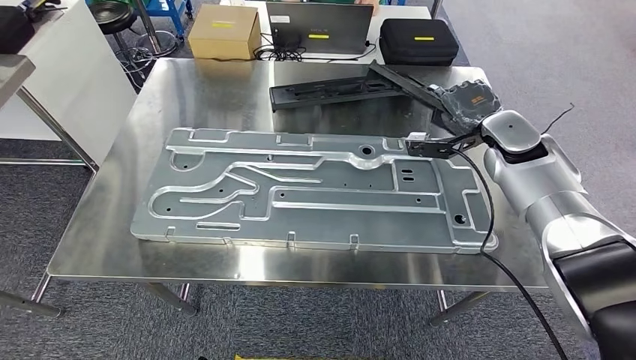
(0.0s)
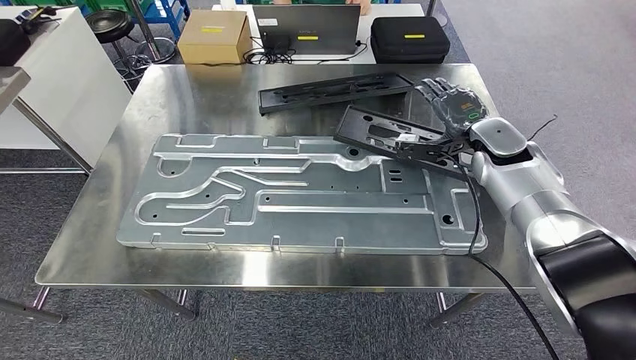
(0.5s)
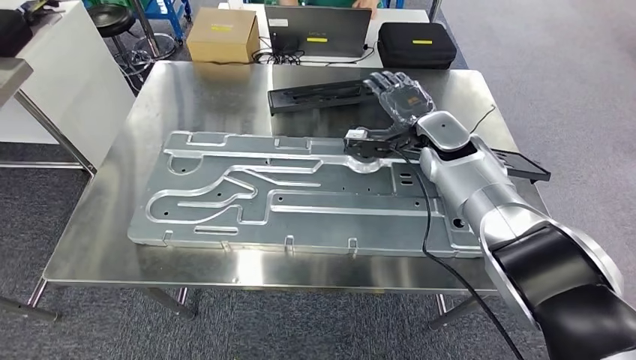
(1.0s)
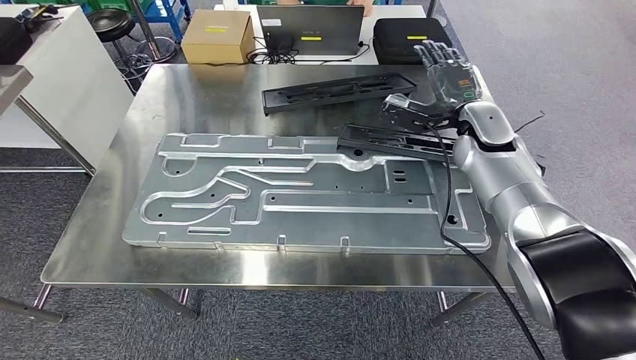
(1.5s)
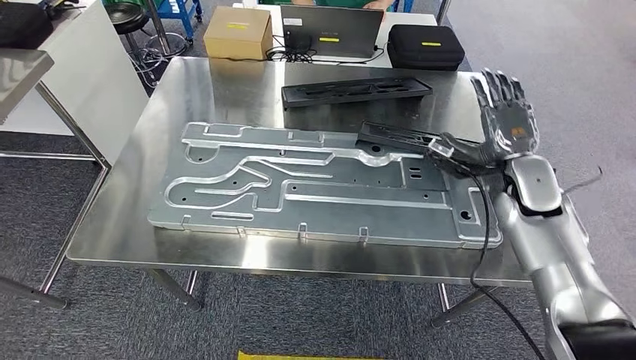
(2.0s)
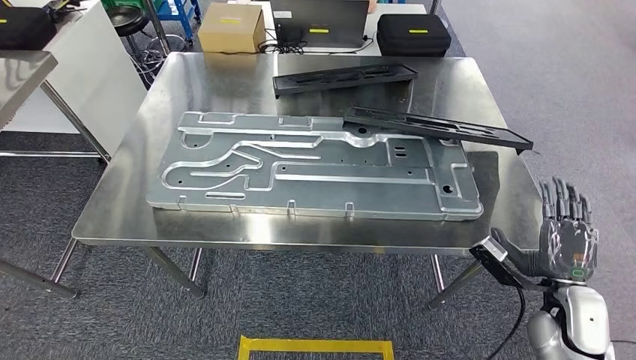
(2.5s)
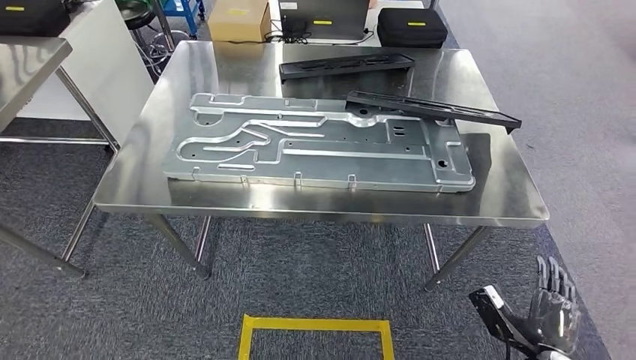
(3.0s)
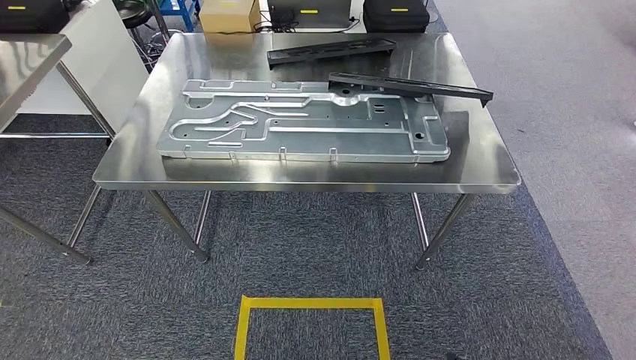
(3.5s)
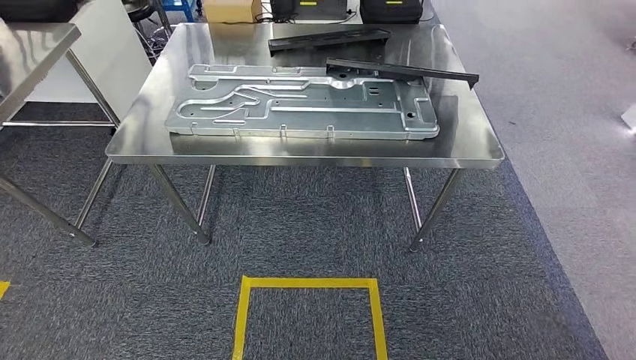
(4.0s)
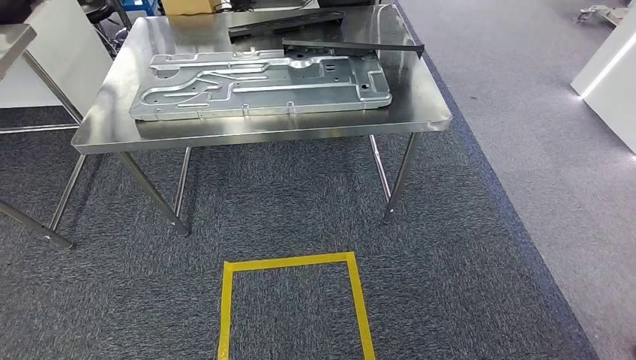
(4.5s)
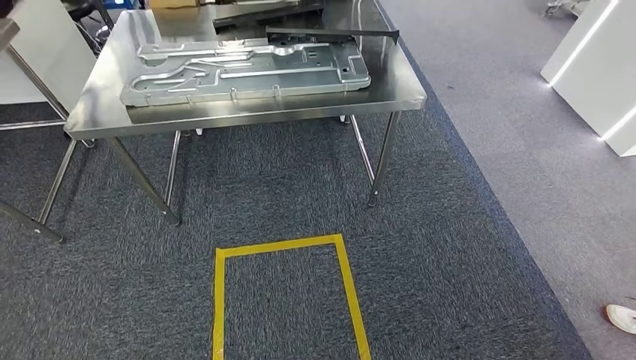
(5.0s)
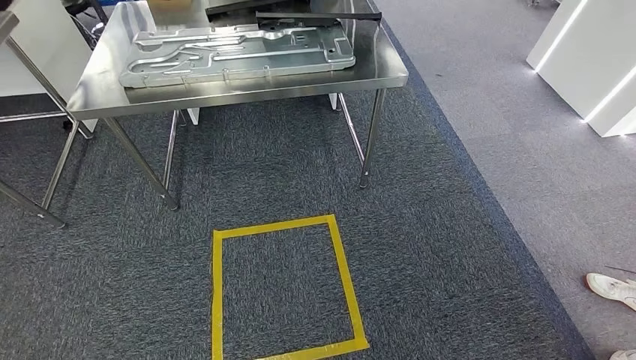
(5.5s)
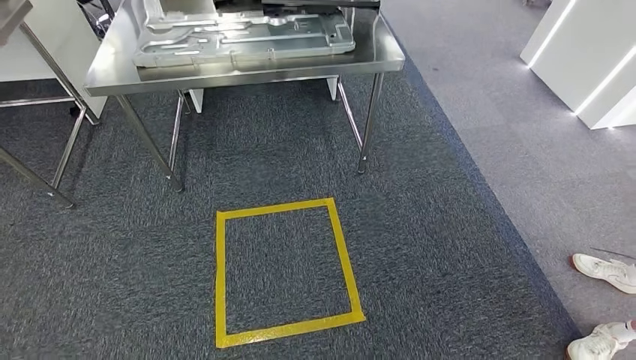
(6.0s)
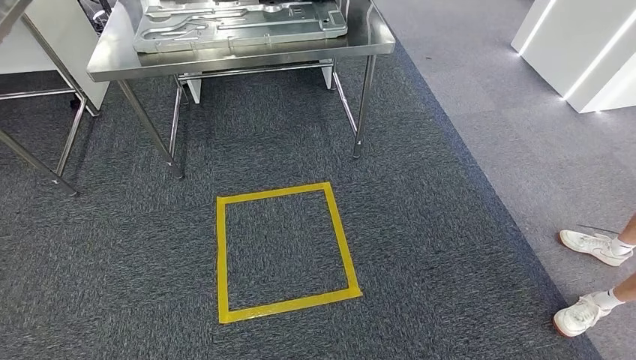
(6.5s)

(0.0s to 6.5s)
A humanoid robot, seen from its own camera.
Step, 0.0s - 3.0s: Insert the large material into the corresponding slot on the workbench.
Step, 5.0s - 6.5s: Return to the initial position at the shelf.
